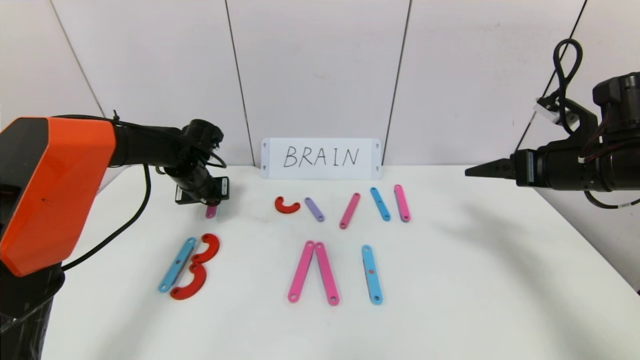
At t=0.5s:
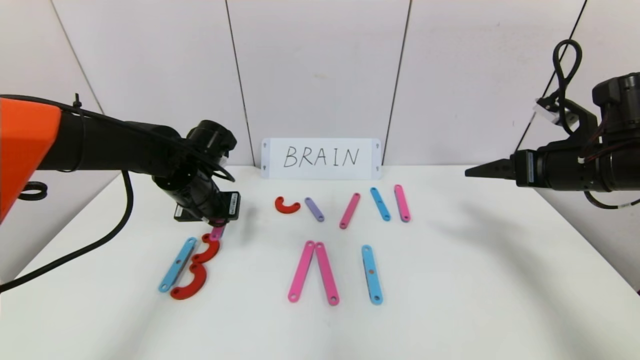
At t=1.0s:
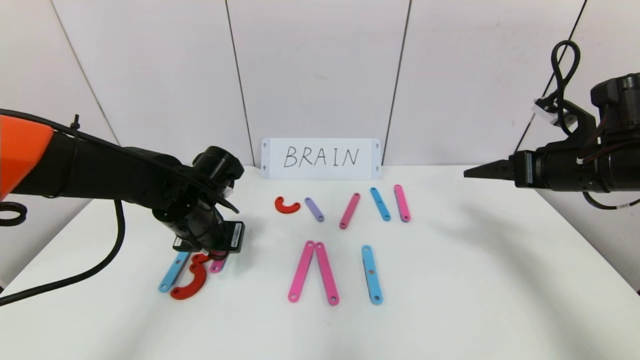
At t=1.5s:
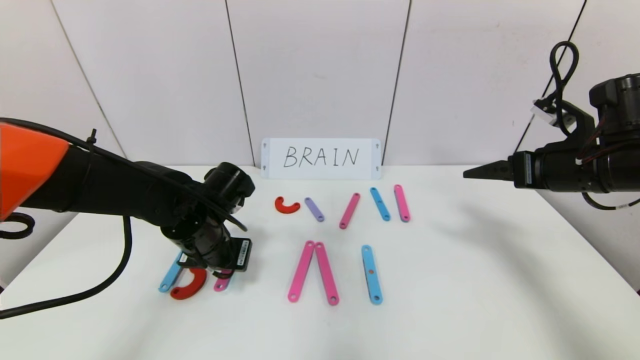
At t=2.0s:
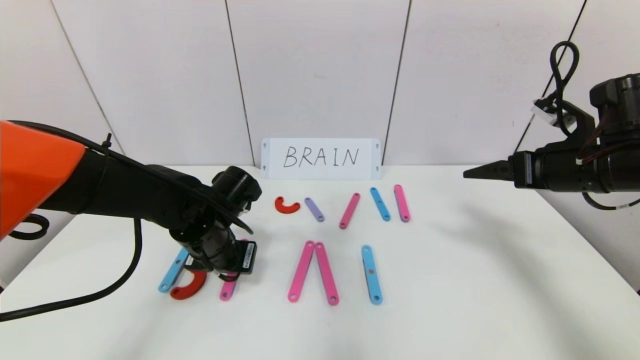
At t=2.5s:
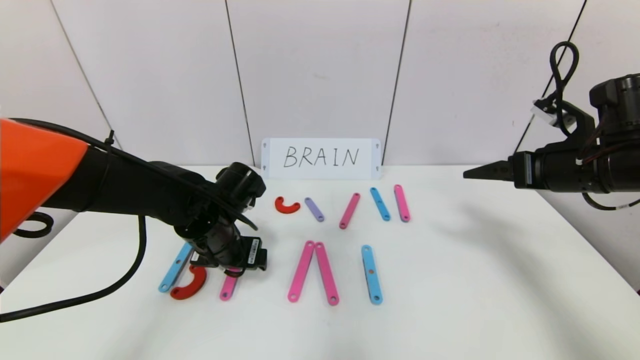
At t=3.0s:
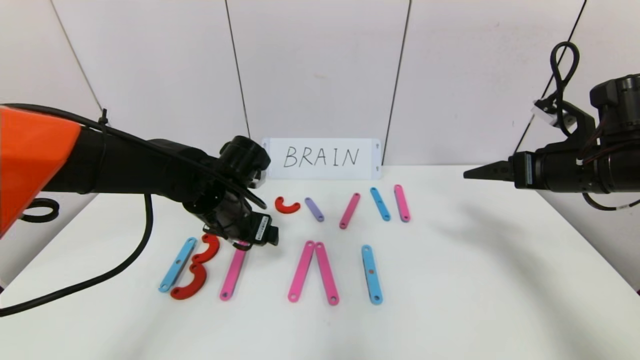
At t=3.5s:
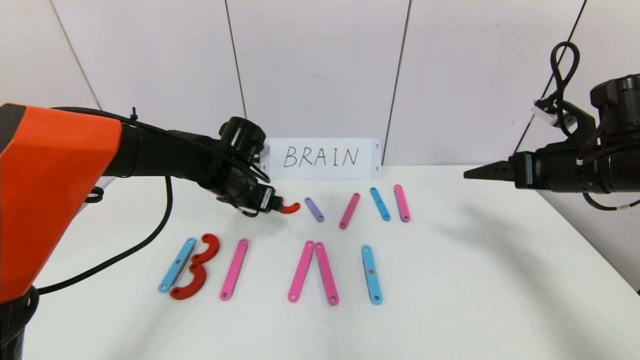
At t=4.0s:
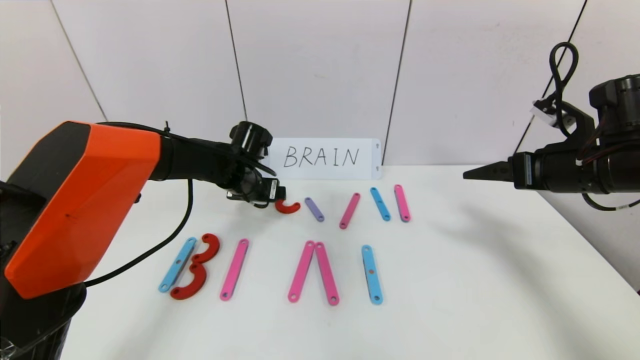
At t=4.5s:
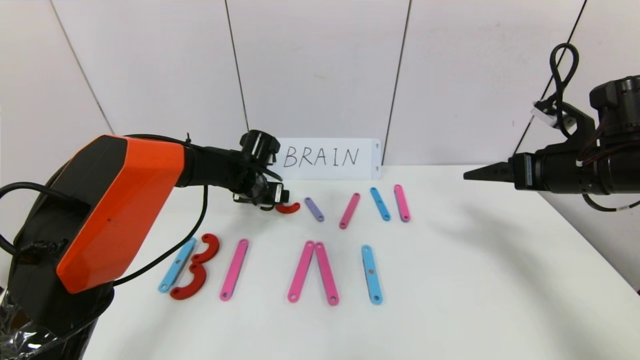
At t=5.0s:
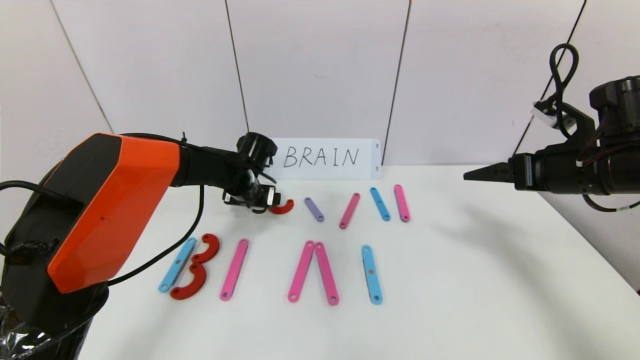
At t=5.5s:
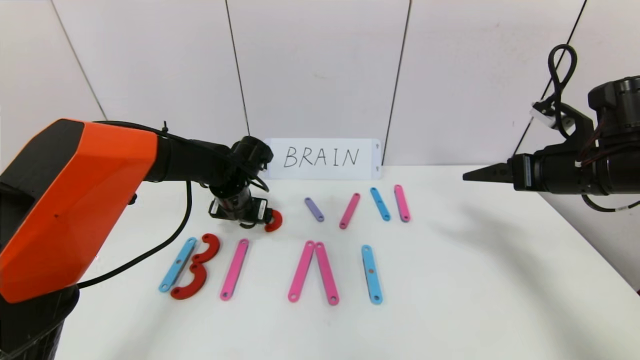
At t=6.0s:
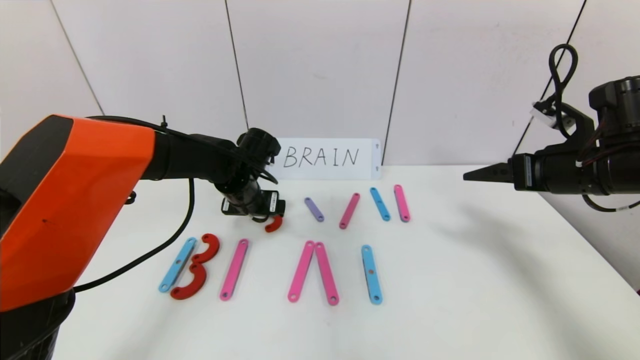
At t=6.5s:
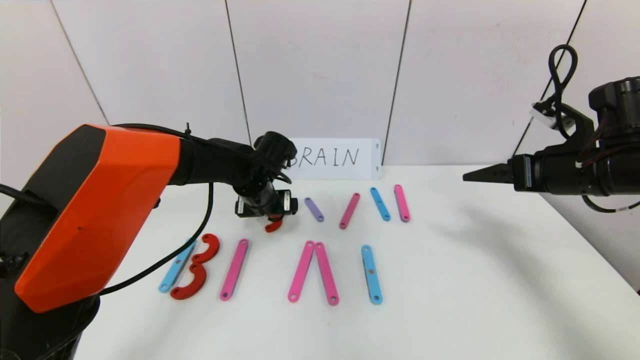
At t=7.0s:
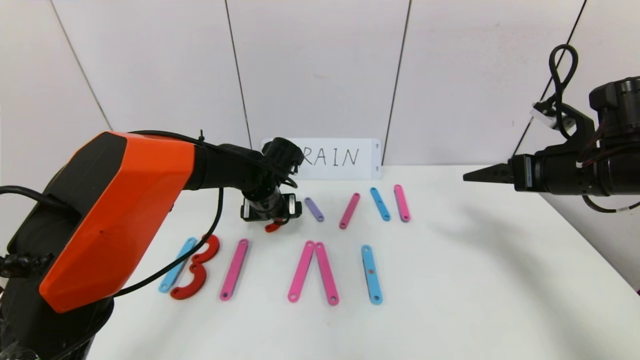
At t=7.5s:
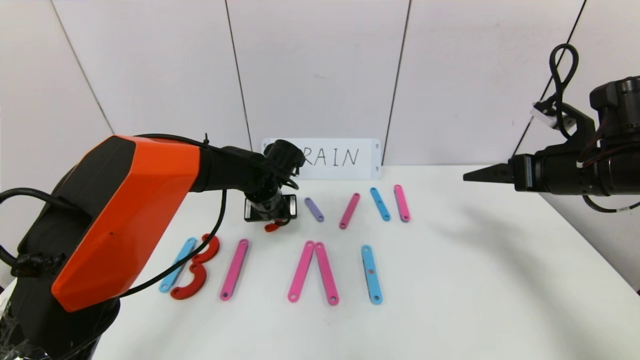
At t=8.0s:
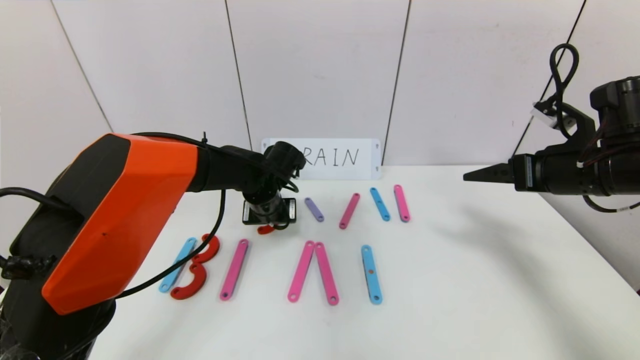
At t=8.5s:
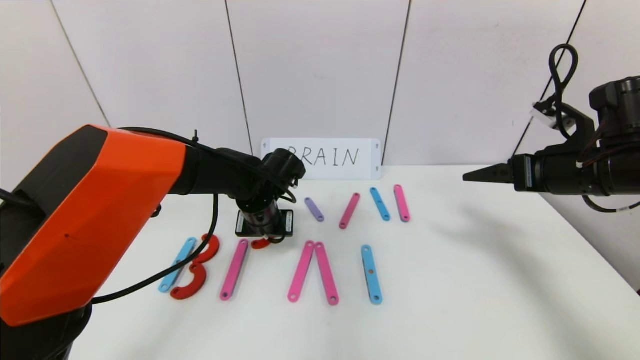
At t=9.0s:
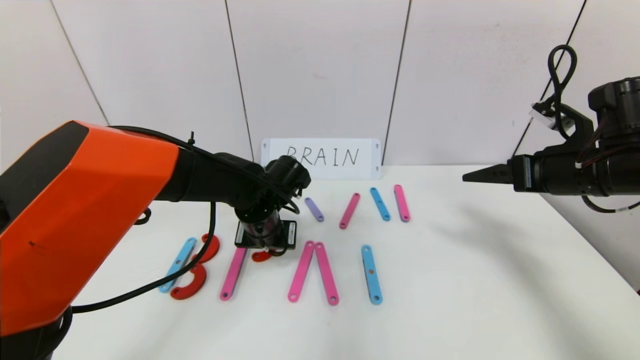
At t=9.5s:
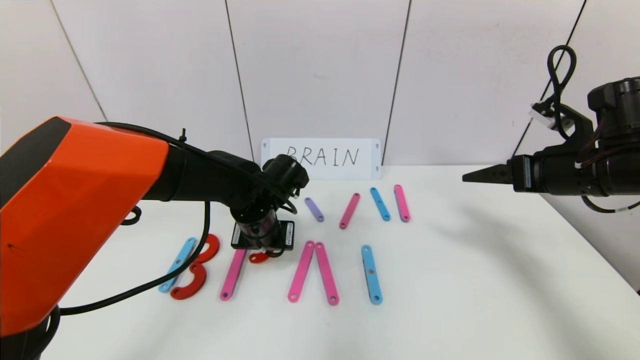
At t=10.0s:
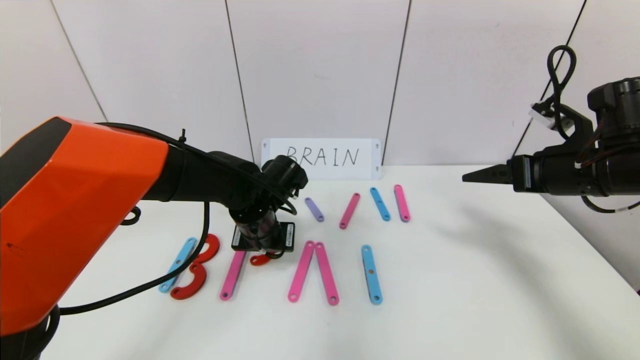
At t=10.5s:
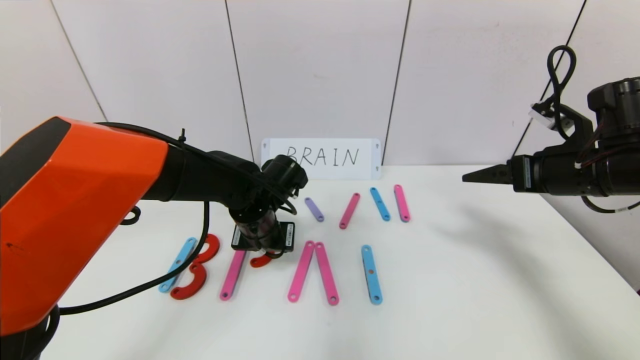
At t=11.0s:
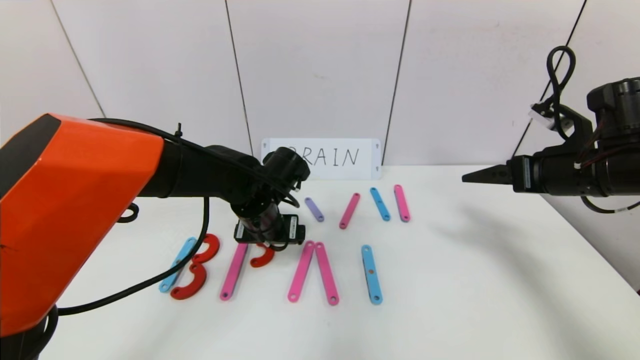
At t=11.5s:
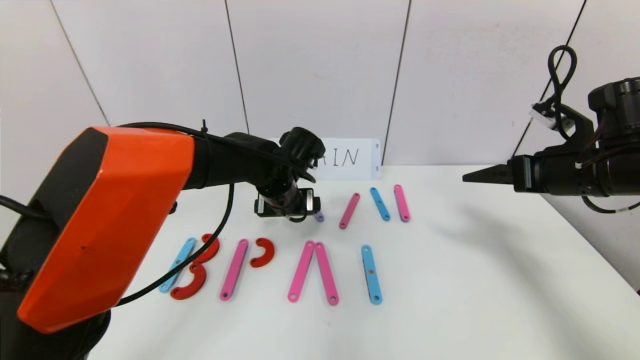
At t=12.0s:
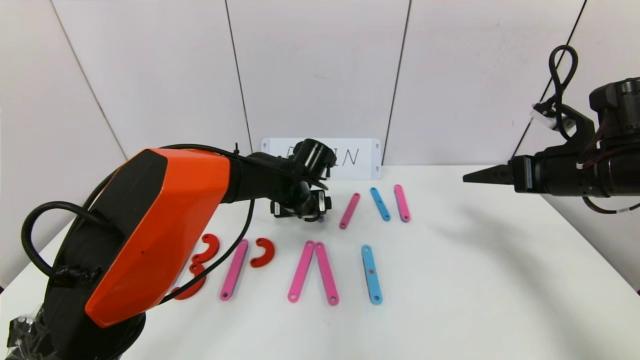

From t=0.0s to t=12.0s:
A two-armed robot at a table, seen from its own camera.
Task of the whole recording: rearrange the word baai as brain.
From t=0.0s to t=2.0s: The left gripper moves backward and to the right, about 15 cm.
From t=2.0s to t=4.0s: The left gripper shifts approximately 15 cm forward, and opens its fingers.
From t=4.0s to t=6.0s: The grippers stay close to where they were, moving slightly.
From t=6.0s to t=8.0s: The left gripper closes.
From t=8.0s to t=10.0s: The left gripper moves backward, some 5 cm.
From t=10.0s to t=12.0s: The left gripper goes roughly 10 cm forward and to the right, and opens its fingers.

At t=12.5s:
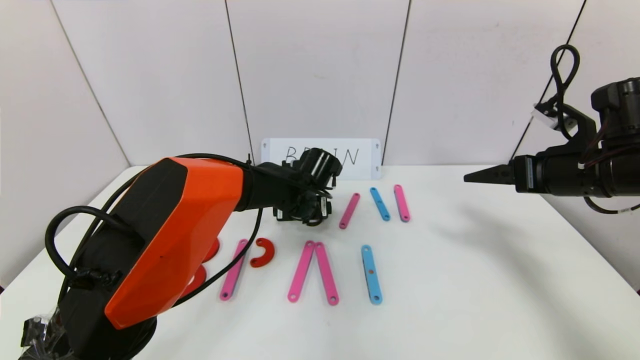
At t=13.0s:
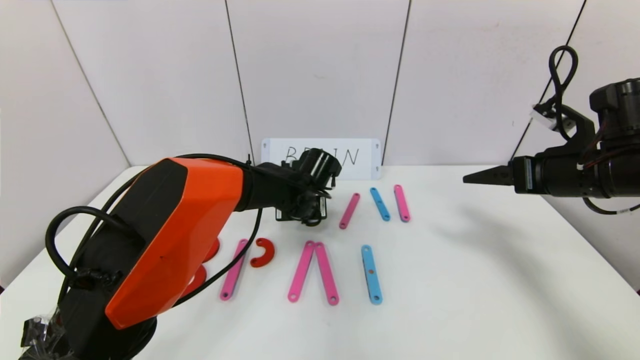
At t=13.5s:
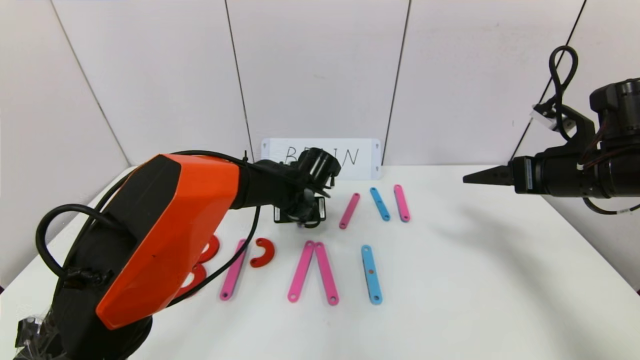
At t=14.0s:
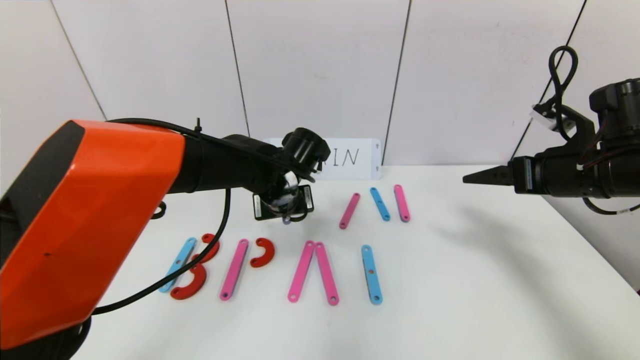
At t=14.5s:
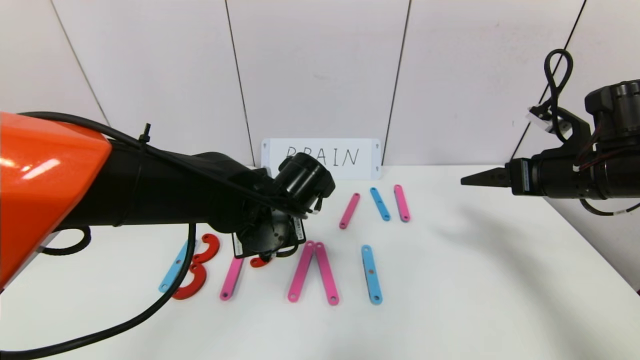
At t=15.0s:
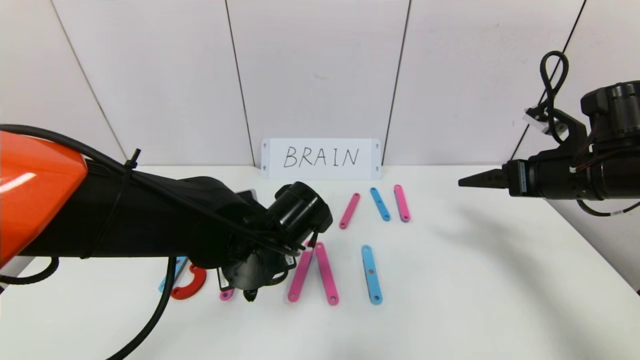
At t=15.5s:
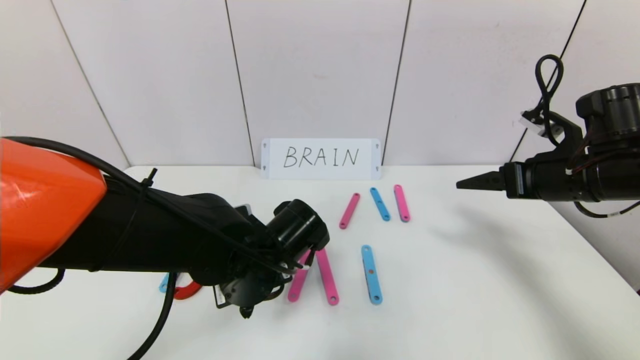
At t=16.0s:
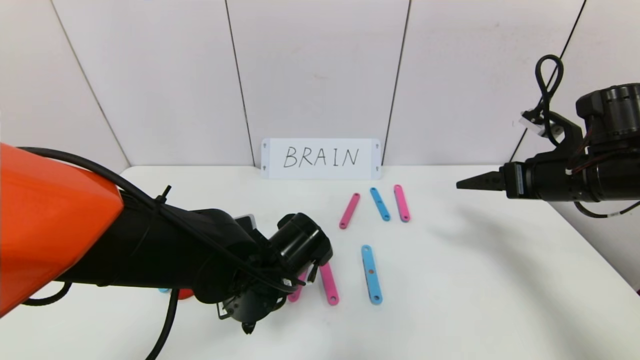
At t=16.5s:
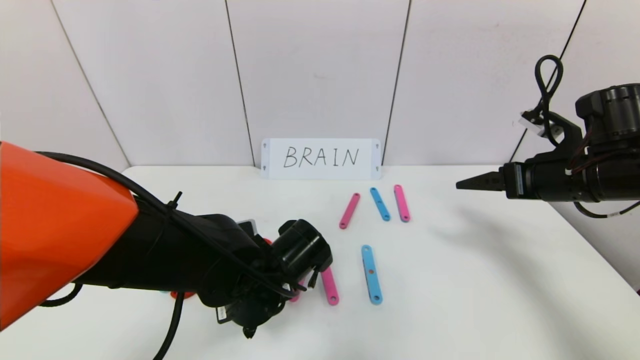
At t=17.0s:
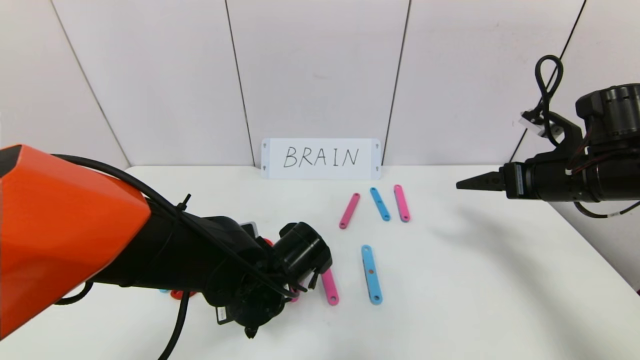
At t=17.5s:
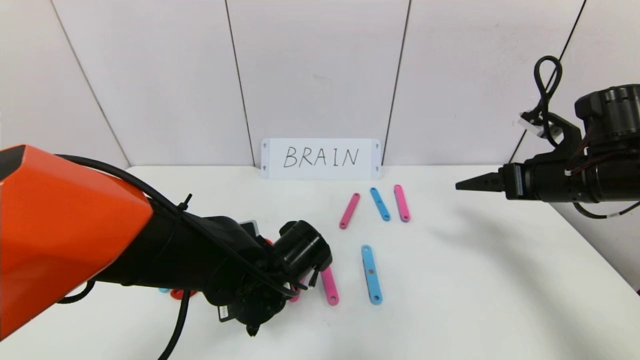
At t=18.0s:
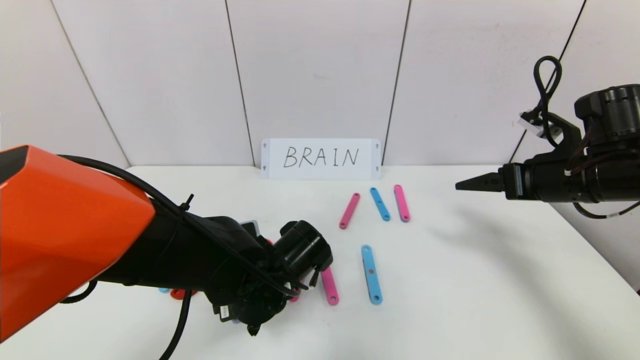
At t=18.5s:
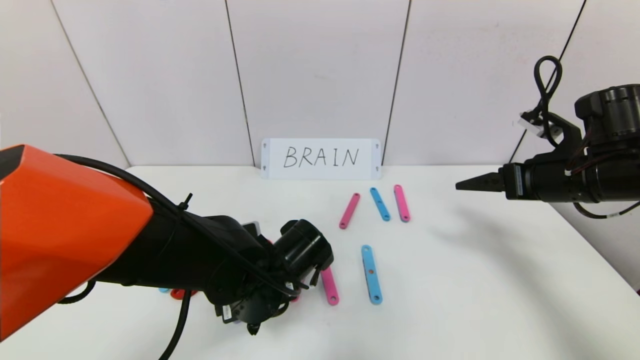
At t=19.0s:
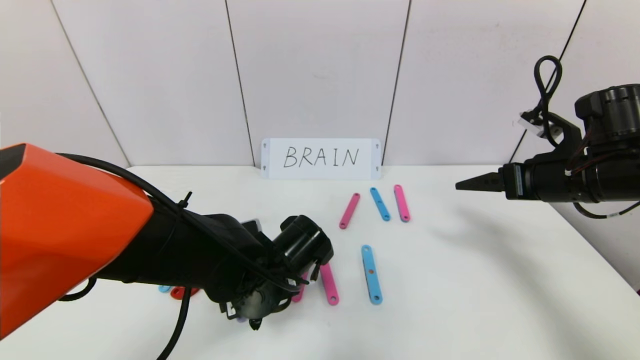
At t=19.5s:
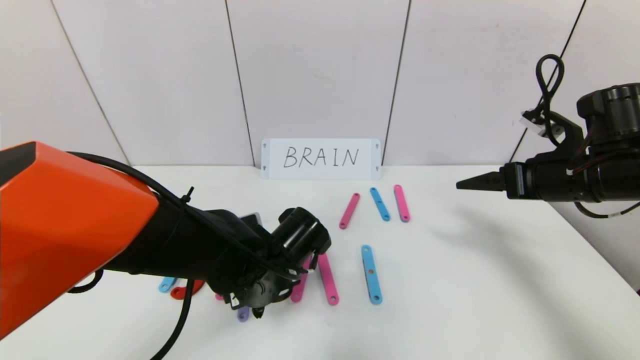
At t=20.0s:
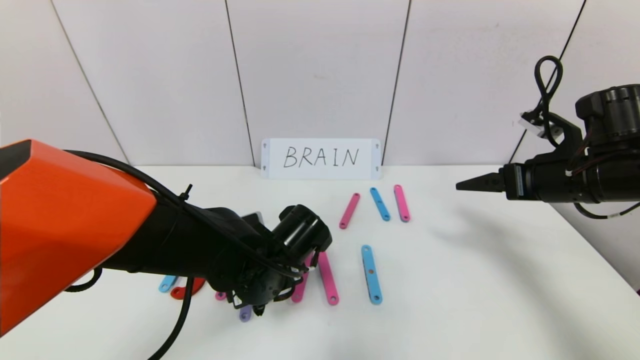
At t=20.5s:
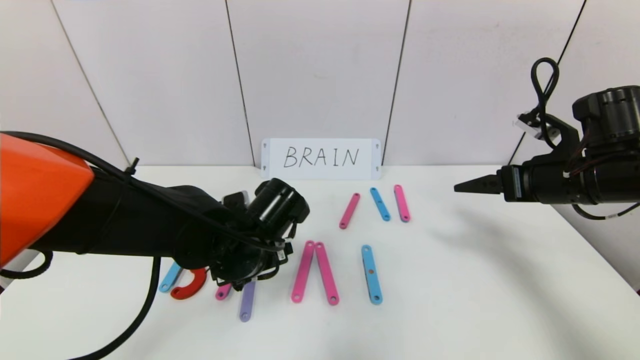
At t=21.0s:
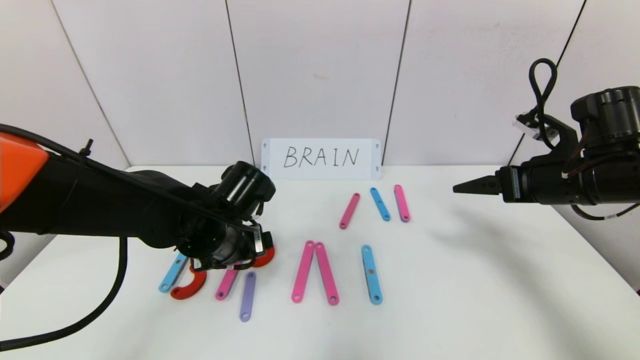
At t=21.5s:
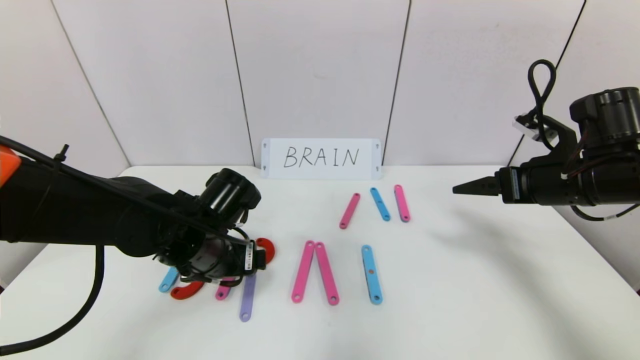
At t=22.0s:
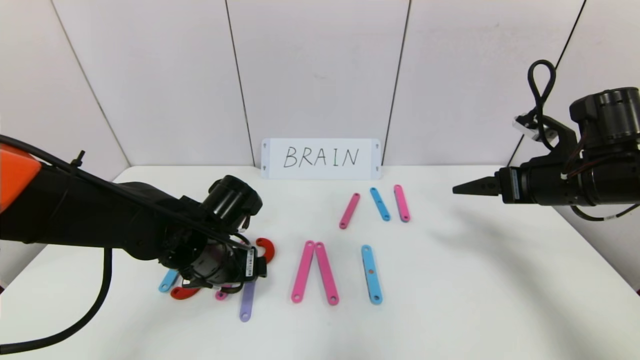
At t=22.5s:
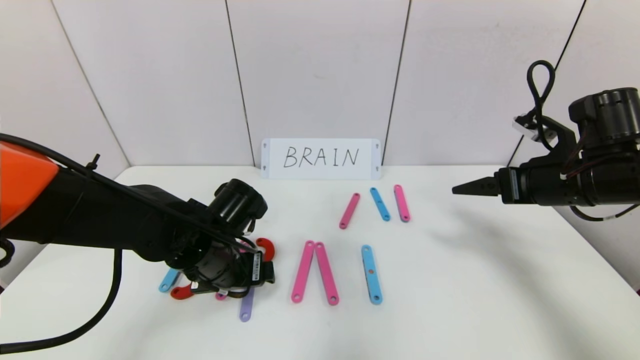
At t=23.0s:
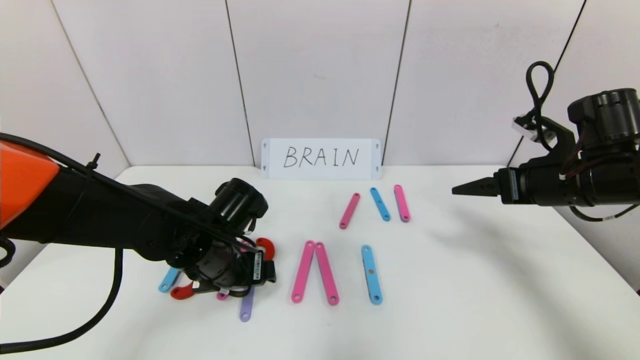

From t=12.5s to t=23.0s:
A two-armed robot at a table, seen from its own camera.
Task of the whole recording: rearrange the word baai as brain.
From t=12.5s to t=14.5s: The left gripper is displaced backward and upward by some 15 cm, and closes its fingers.
From t=14.5s to t=16.5s: The left gripper travels downward by roughly 5 cm.
From t=16.5s to t=19.0s: The left gripper opens up.
From t=19.0s to t=21.0s: The left gripper travels to the left by approximately 5 cm.
From t=21.0s to t=23.0s: The grippers make only small movements.
